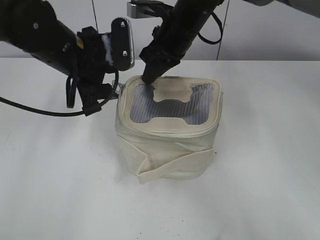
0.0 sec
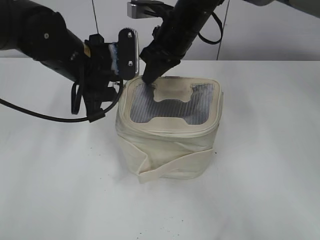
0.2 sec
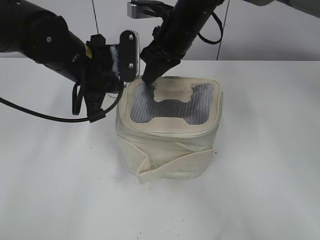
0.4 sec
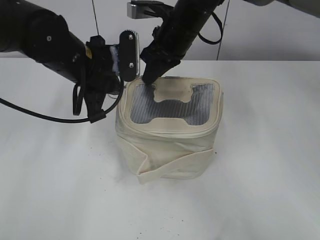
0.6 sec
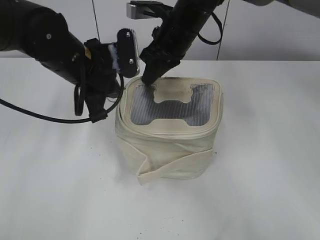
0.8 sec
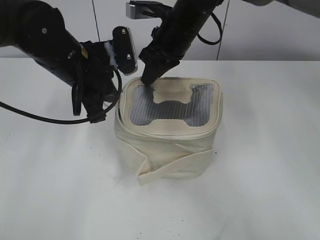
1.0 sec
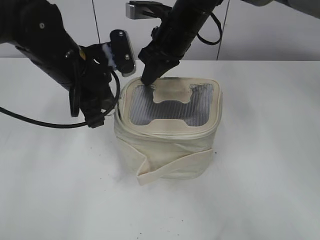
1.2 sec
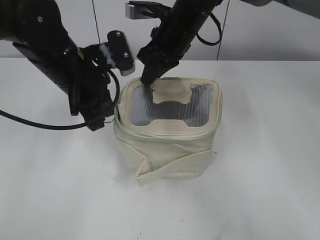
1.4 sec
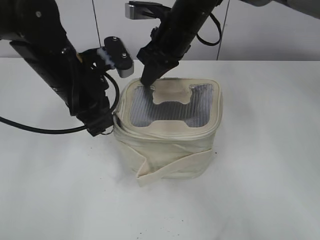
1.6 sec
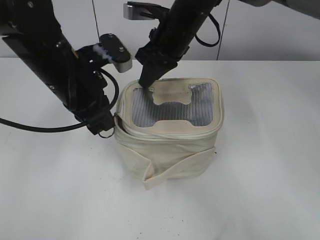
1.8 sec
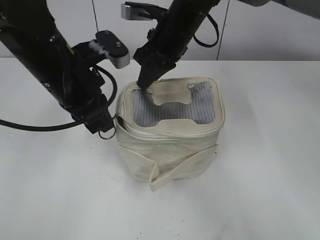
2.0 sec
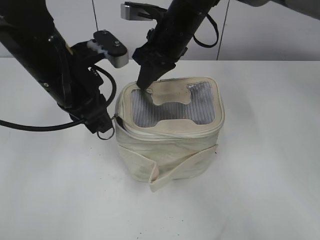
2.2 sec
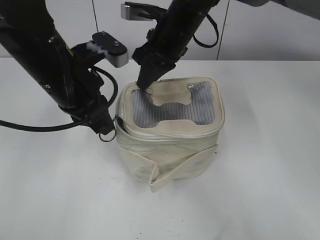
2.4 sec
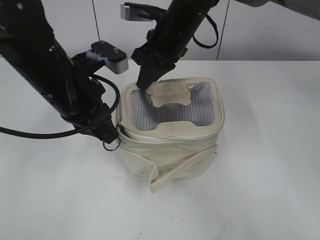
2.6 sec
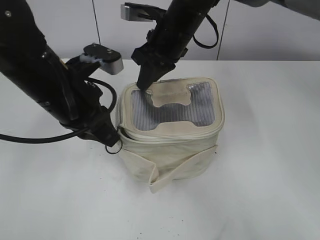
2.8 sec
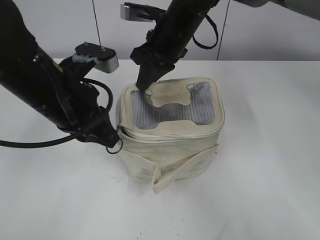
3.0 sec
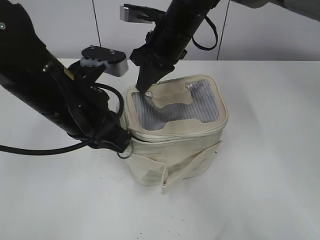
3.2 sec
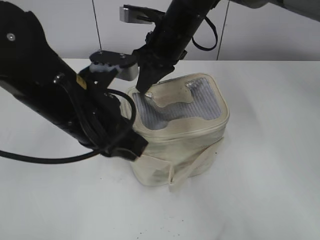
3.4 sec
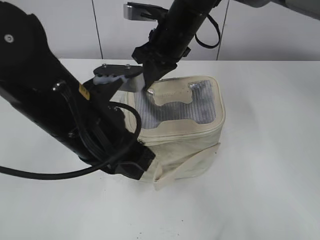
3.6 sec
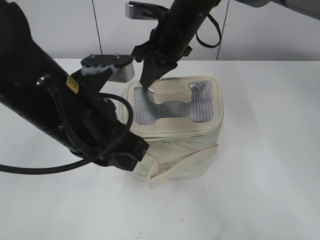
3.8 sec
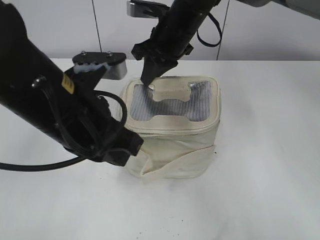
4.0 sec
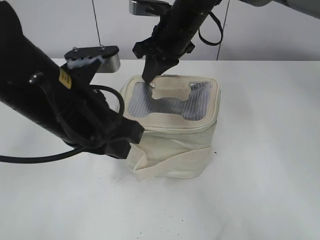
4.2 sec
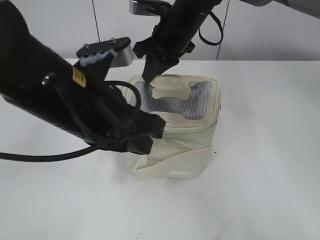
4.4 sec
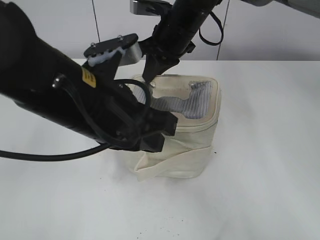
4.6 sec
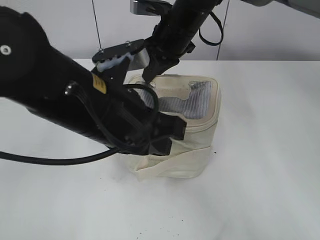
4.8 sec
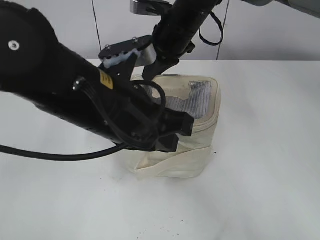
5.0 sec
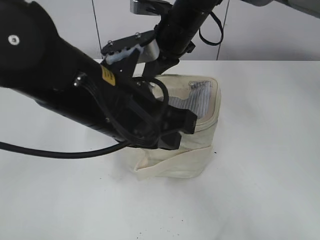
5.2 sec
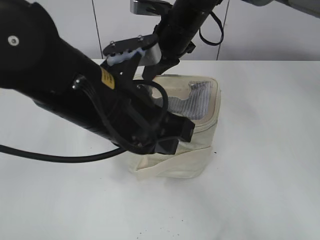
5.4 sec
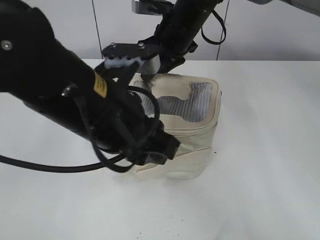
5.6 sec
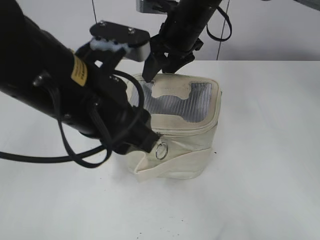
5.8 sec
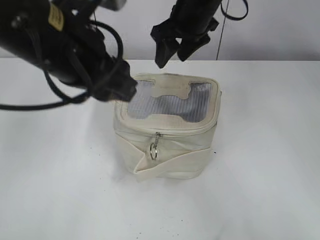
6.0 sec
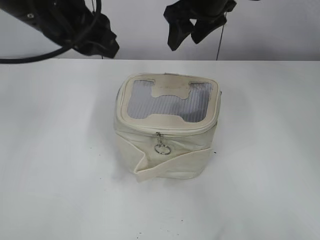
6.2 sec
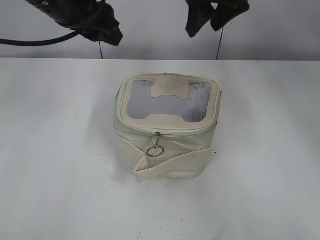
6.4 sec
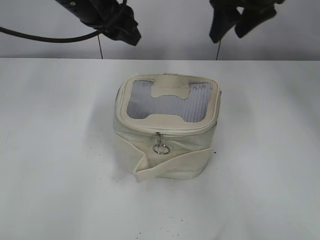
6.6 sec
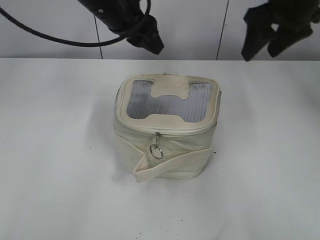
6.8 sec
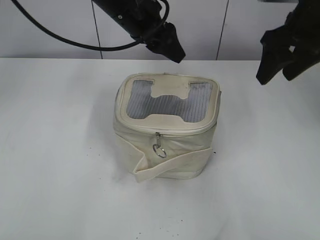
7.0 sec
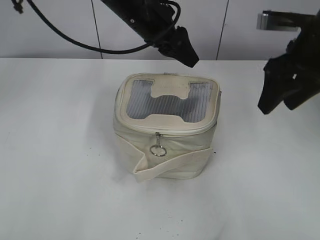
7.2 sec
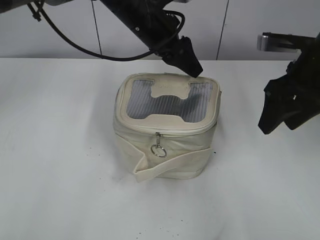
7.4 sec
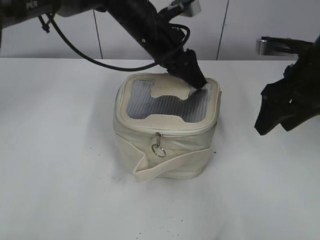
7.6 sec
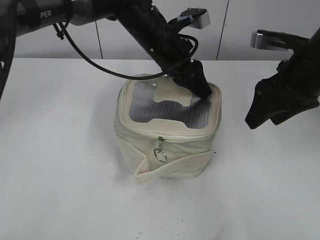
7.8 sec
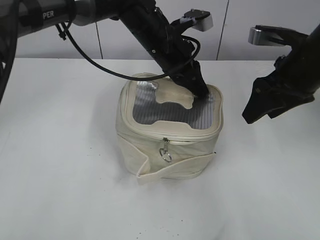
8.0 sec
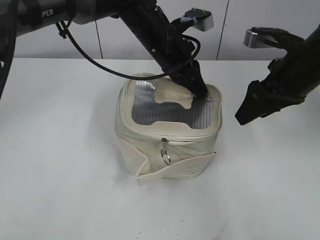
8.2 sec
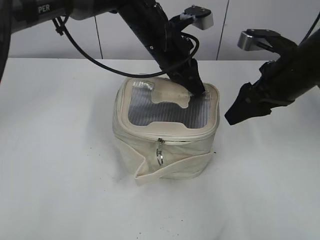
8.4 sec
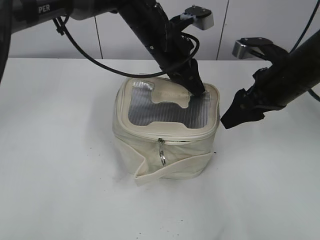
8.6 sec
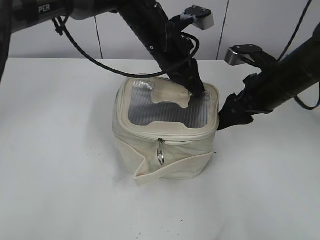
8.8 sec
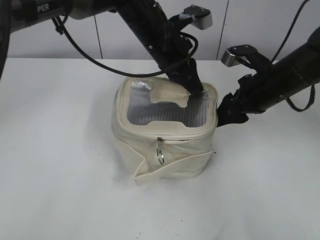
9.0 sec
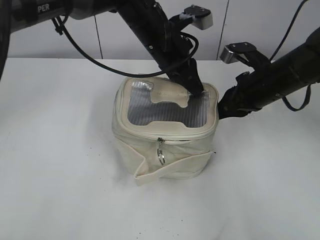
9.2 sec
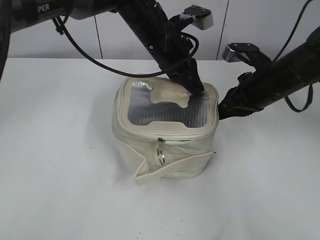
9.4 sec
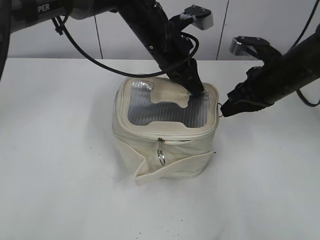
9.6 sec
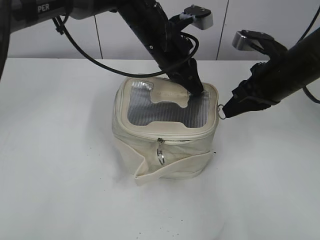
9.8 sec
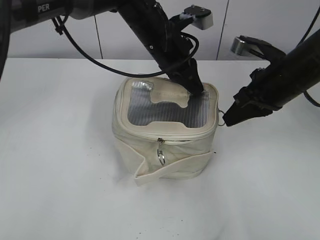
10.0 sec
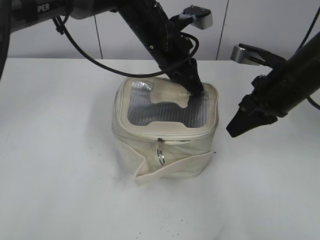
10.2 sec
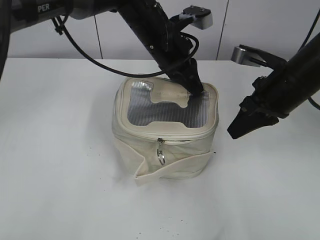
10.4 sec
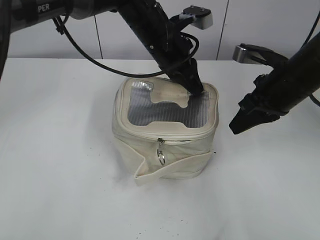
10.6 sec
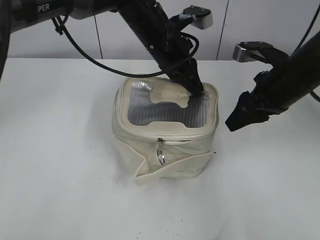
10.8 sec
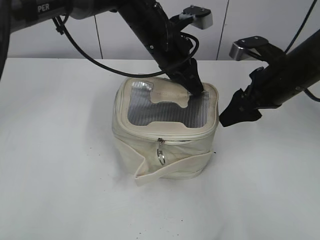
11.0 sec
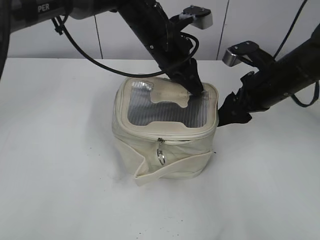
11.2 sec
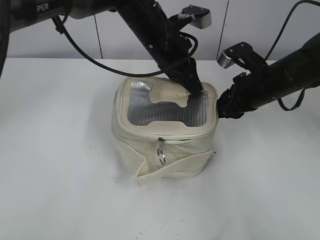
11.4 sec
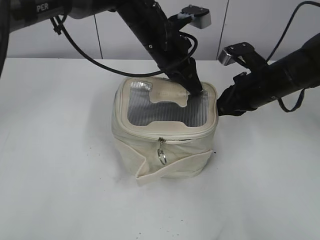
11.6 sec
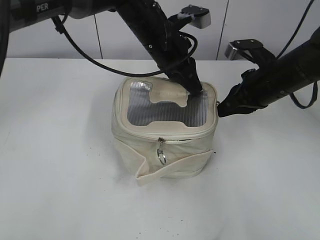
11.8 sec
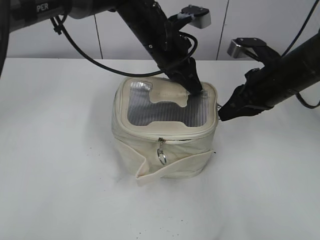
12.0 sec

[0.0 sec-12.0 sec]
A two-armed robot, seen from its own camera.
Step, 0.0 sec to 5.6 sec: Zip up the bag with your left hand.
0.0 sec to 1.6 sec: The left gripper closes its fingers.
1.6 sec to 3.0 sec: The left gripper moves backward, about 5 cm.
3.0 sec to 4.4 sec: The left gripper changes place by about 5 cm.
4.4 sec to 6.0 sec: The right gripper opens its fingers; the left gripper shifts by approximately 5 cm, and opens up.
6.0 sec to 7.6 sec: The left gripper shifts roughly 20 cm forward and to the right. Meanwhile the right gripper goes roughly 20 cm to the right and backward.
7.6 sec to 9.0 sec: The right gripper goes approximately 5 cm downward, while the left gripper closes its fingers.
9.0 sec to 10.4 sec: The right gripper closes.
10.4 sec to 12.0 sec: The right gripper opens, then closes again.

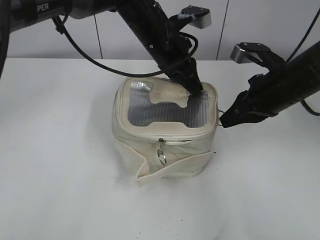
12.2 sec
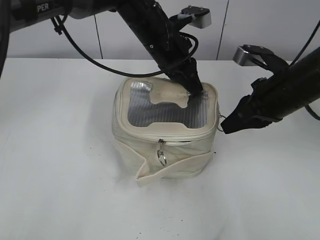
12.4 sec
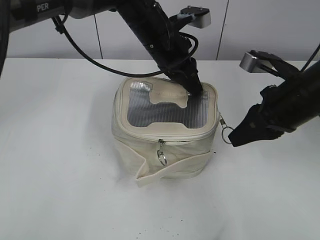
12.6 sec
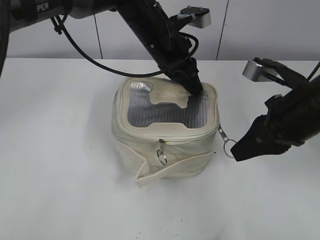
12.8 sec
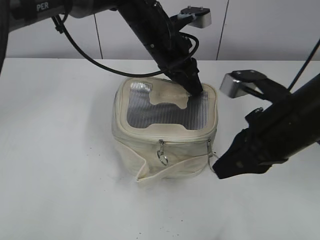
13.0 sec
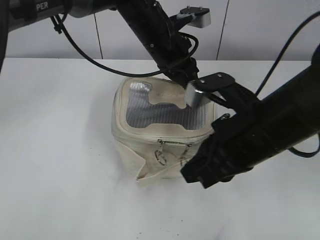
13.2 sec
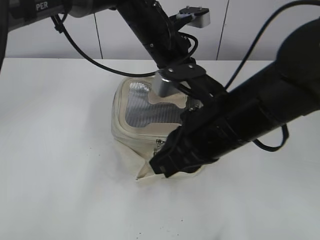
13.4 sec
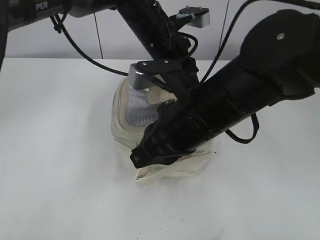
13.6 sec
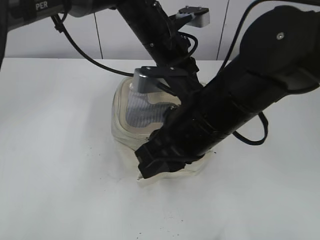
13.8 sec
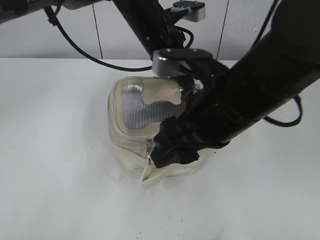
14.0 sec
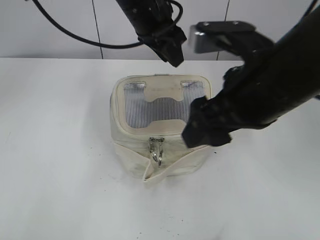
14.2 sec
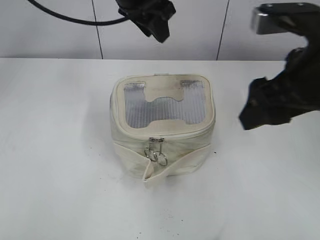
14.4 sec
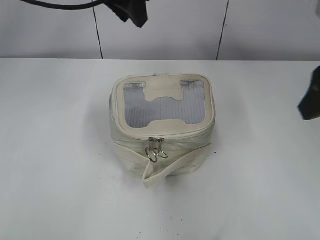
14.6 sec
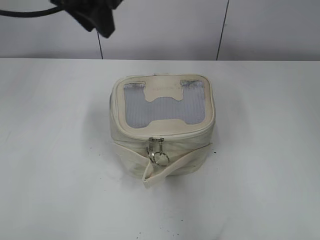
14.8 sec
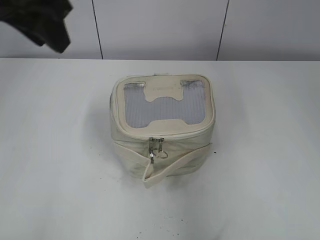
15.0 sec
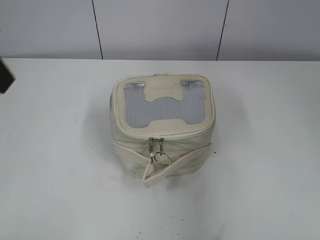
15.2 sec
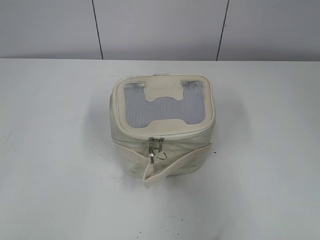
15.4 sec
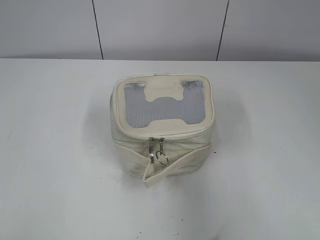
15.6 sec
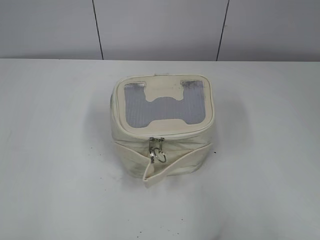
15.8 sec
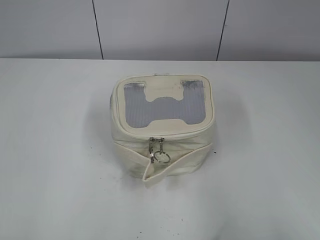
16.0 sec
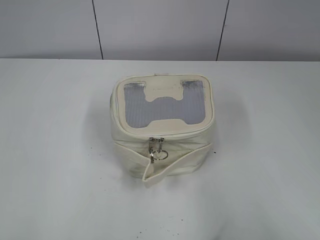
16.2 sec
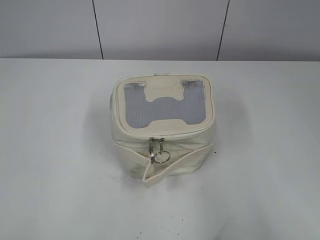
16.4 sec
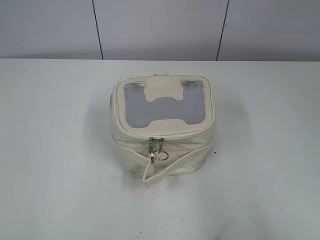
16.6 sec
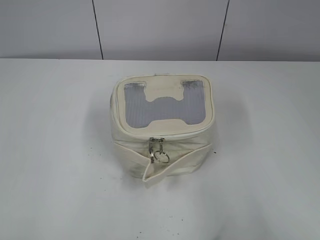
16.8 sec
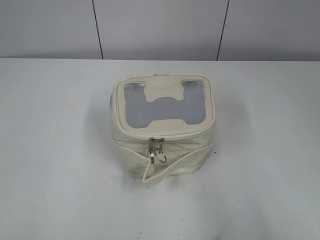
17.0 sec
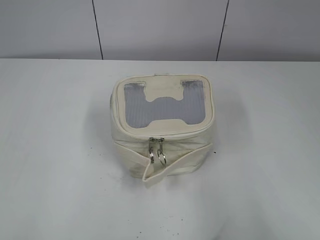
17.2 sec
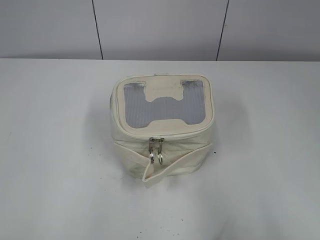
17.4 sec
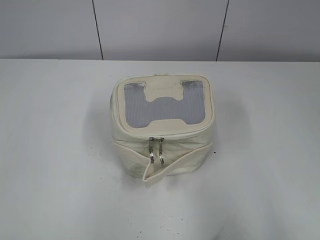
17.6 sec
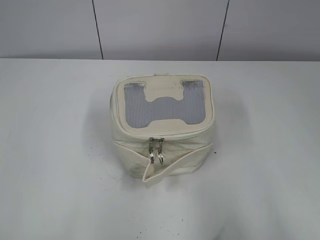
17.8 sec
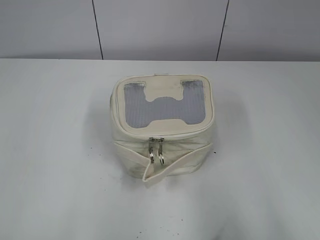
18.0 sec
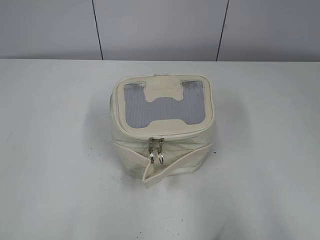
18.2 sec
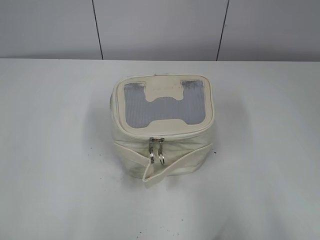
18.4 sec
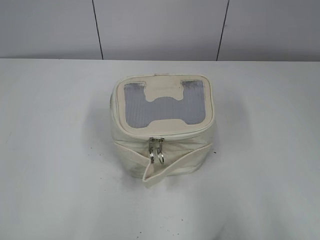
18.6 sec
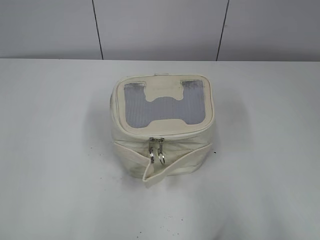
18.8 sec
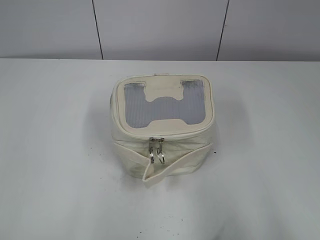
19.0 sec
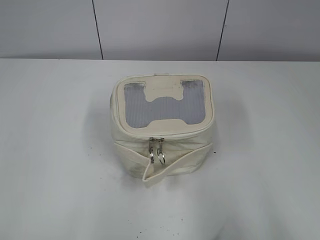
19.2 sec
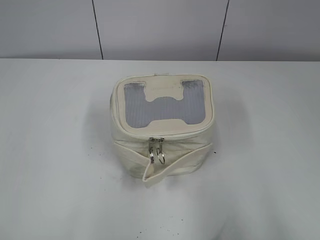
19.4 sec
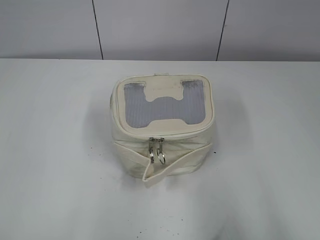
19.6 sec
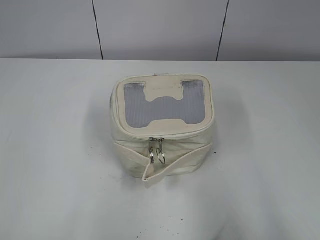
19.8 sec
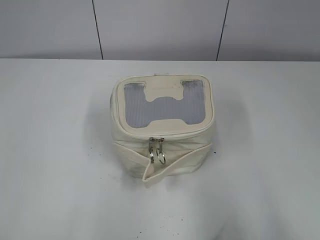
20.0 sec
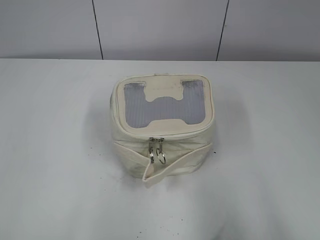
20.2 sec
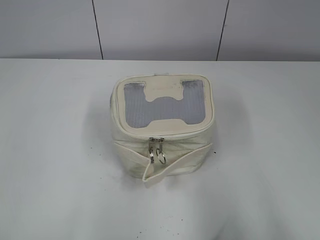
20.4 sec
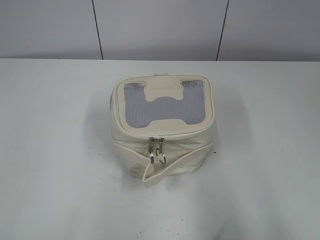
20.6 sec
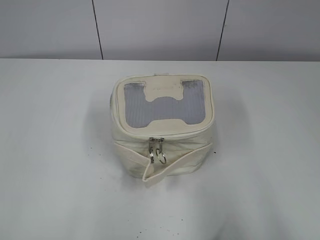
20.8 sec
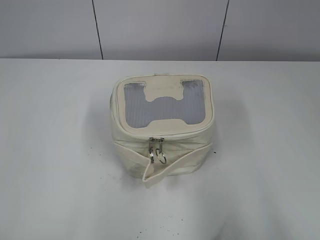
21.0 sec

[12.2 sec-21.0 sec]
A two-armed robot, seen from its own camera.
12.2 sec to 13.6 sec: The right gripper heads to the left and backward, covering roughly 15 cm.
13.6 sec to 15.2 sec: The right gripper heads to the right, upward and backward, covering roughly 30 cm, and opens its fingers. Meanwhile the left gripper is displaced to the left, backward and upward by approximately 30 cm, and opens up.
15.2 sec to 16.6 sec: The right gripper moves backward and downward, approximately 15 cm. Meanwhile the left gripper travels backward, to the left and downward by approximately 25 cm.
18.0 sec to 21.0 sec: The two grippers keep their place.

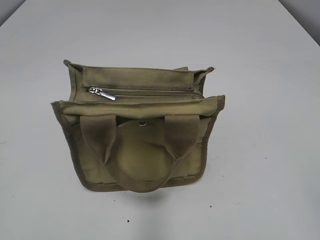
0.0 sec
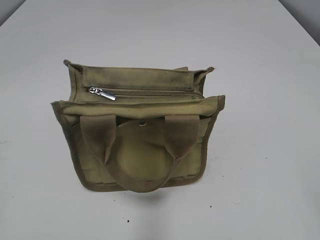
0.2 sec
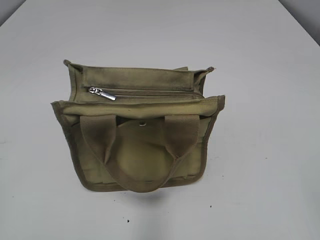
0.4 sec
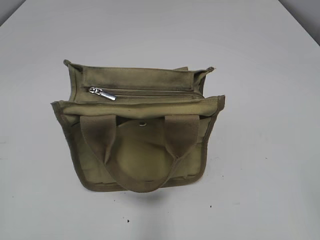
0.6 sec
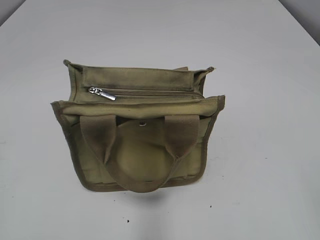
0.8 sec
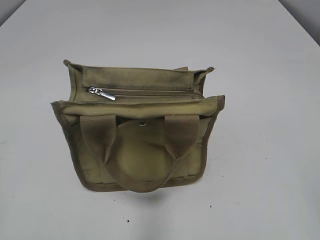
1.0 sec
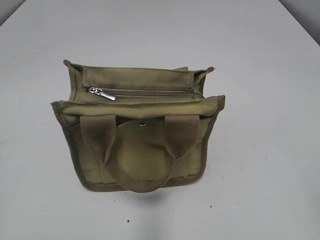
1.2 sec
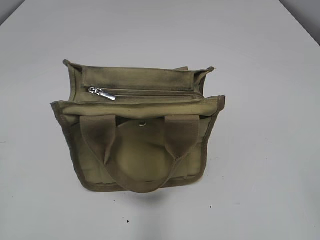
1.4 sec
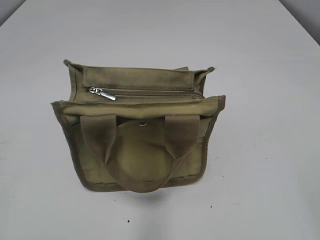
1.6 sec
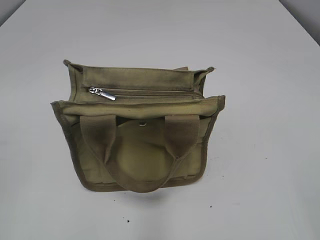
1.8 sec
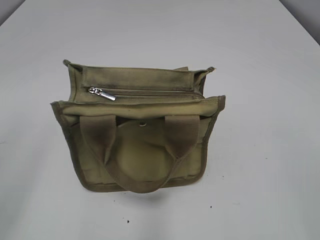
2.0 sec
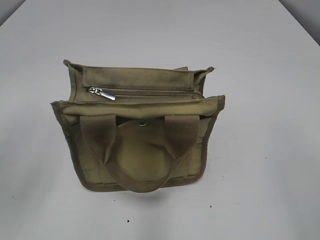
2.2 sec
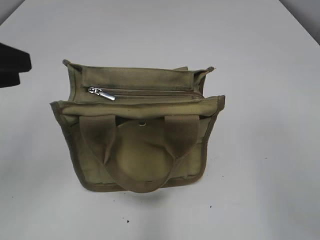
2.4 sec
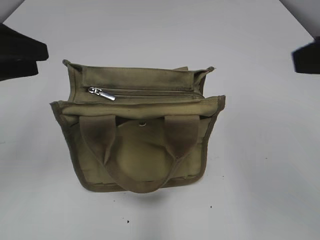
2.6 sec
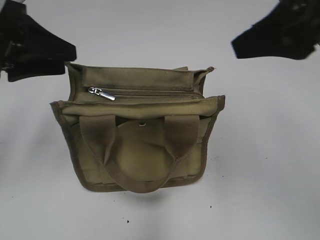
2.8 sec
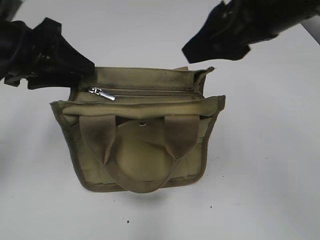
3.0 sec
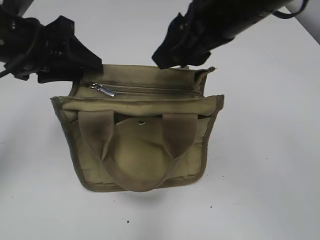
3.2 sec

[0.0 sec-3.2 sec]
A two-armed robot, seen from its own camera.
1.6 sec to 3.2 sec: The right gripper goes roughly 35 cm forward and to the left. The left gripper heads forward and to the right, covering about 30 cm.
